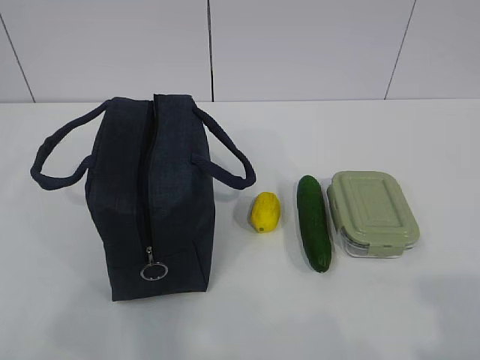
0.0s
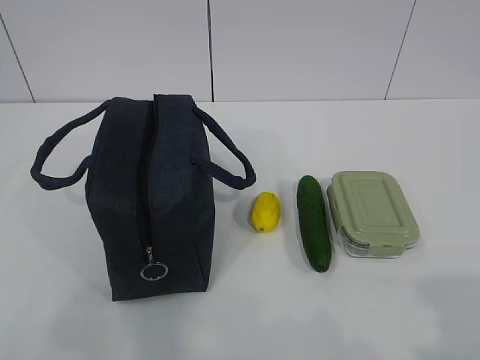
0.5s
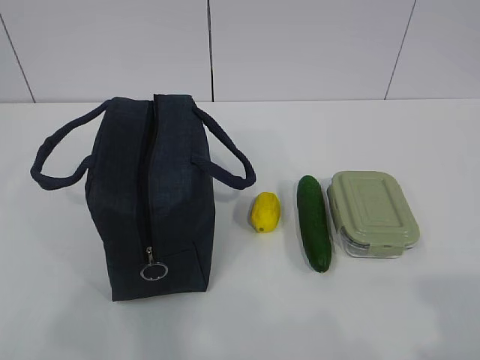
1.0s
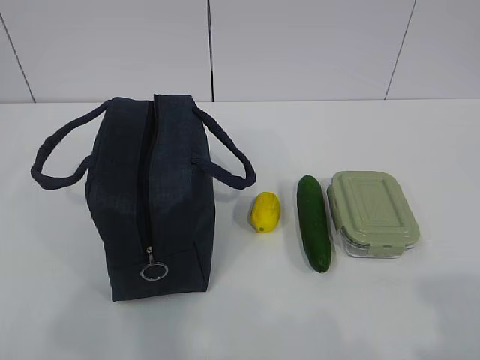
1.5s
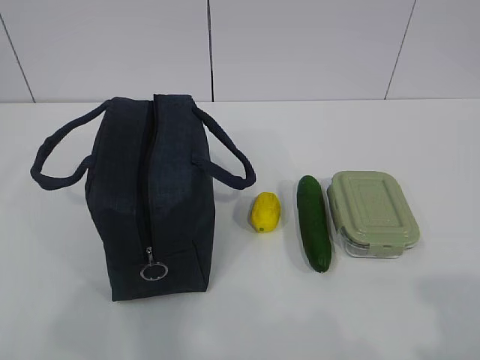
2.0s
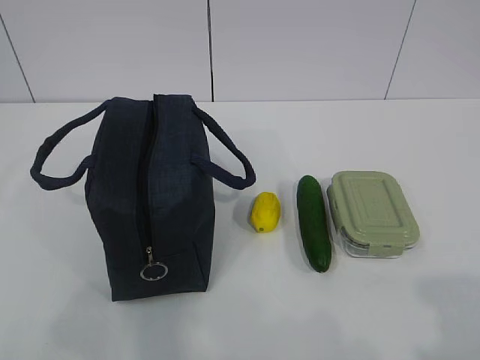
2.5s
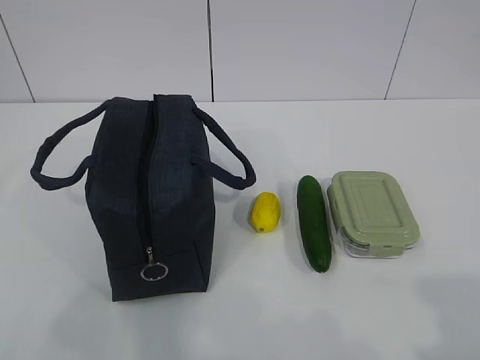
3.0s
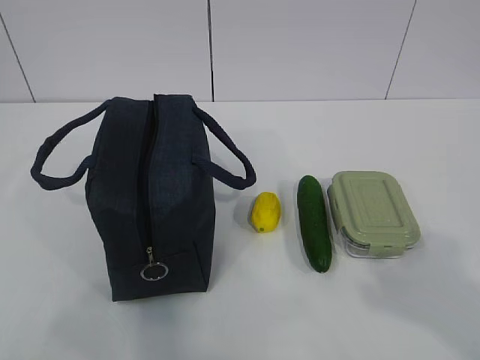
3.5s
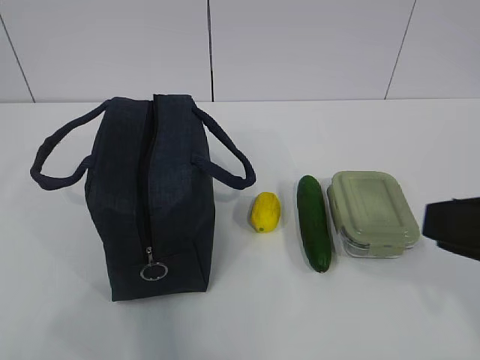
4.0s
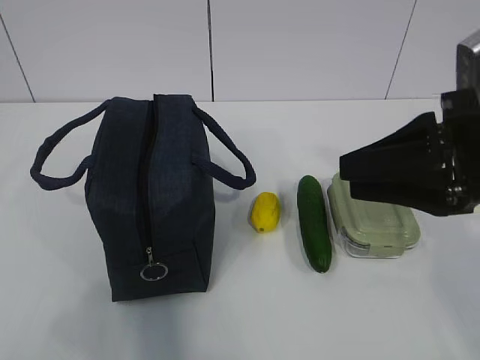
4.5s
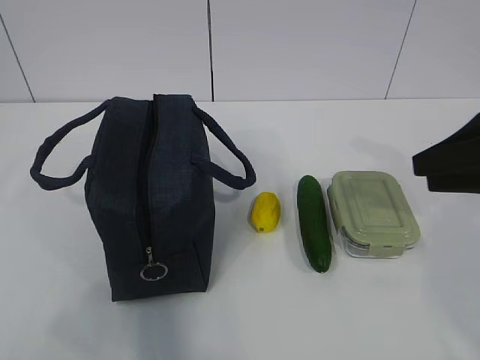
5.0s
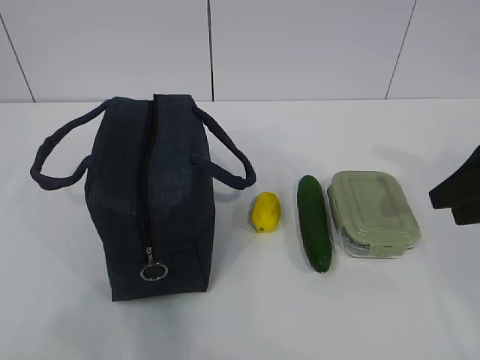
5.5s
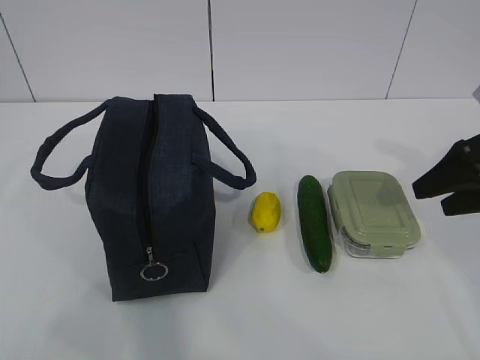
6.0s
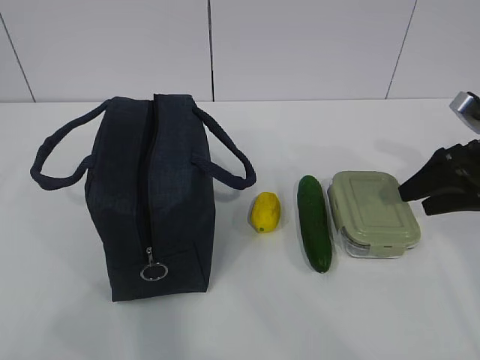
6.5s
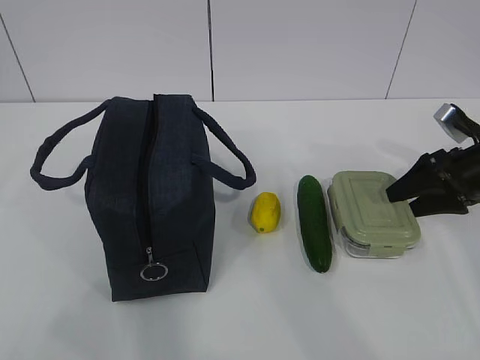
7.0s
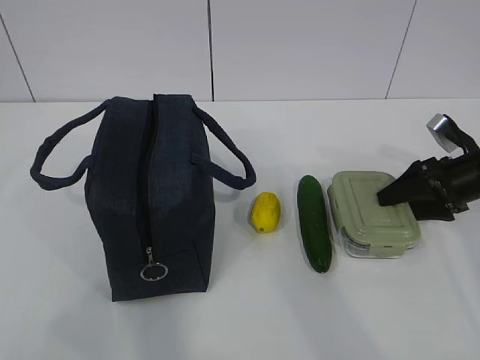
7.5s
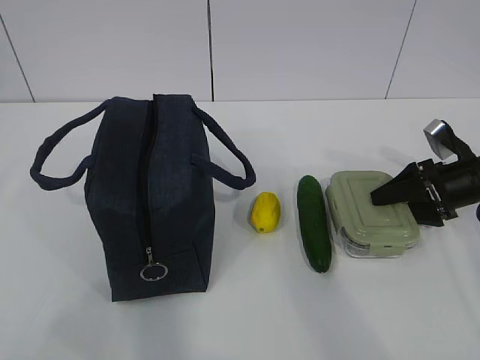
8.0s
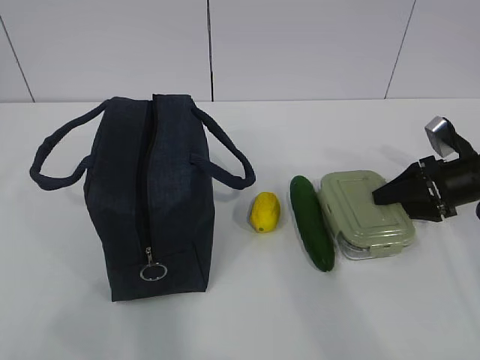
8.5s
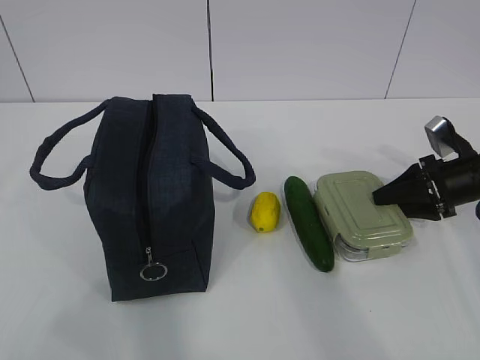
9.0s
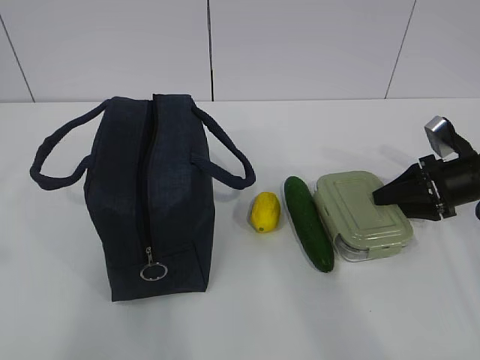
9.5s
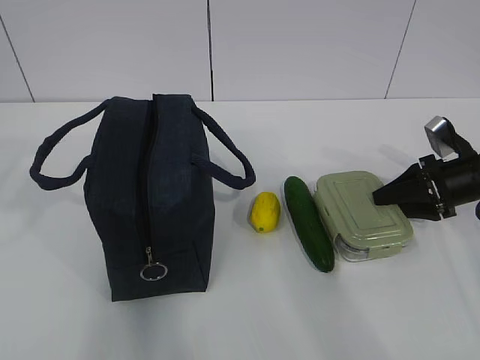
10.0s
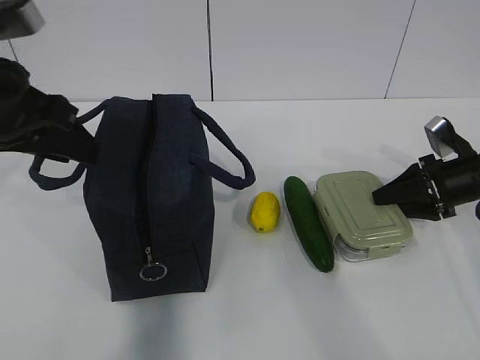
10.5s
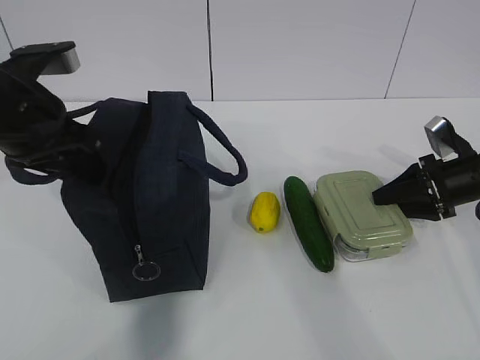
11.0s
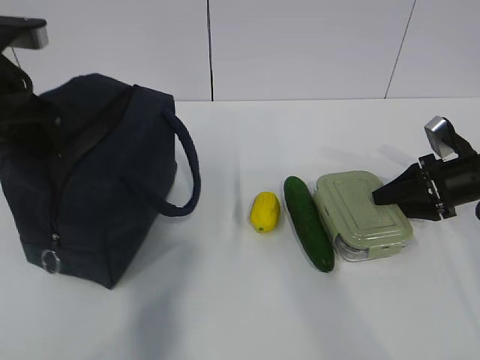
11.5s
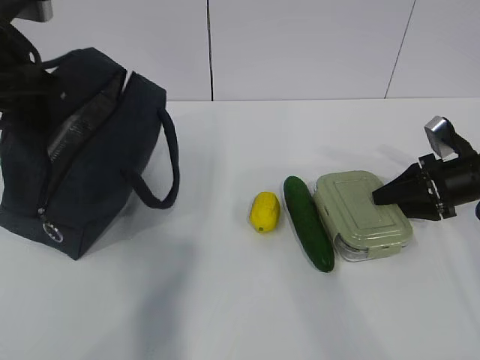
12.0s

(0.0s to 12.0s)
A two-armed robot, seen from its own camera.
Step, 0.0s - 10.0s: Grab the lunch box with your right hand.
2.0s - 4.0s: The right gripper is displaced forward and to the left by some 15 cm.
4.0s - 6.0s: The right gripper is displaced forward, to the right and downward by about 25 cm, and opens its fingers.
6.0s - 8.0s: The right gripper travels downward and forward by some 15 cm.
8.0s - 10.0s: The right gripper closes its fingers; the left gripper goes some 20 cm forward.
10.0s - 12.0s: The left gripper is displaced forward by about 15 cm, and closes up.

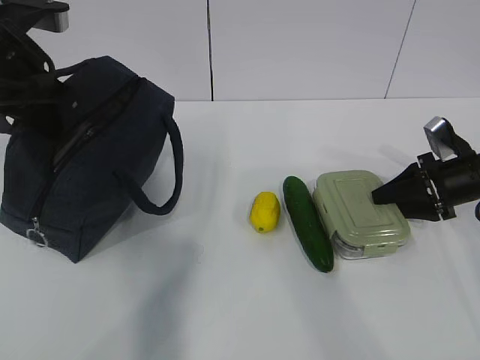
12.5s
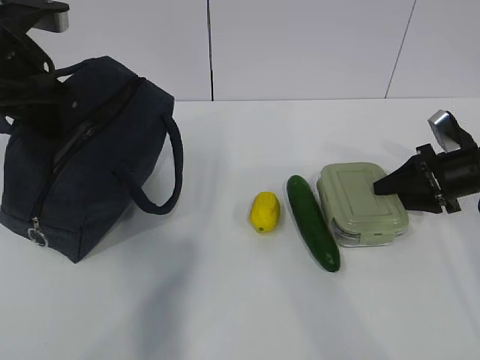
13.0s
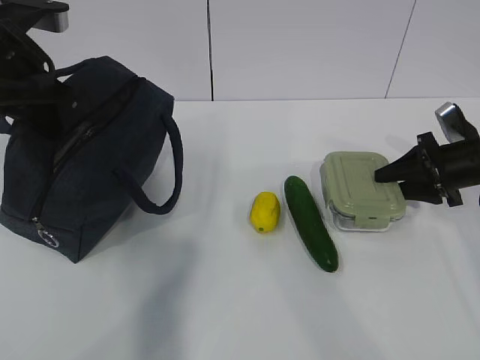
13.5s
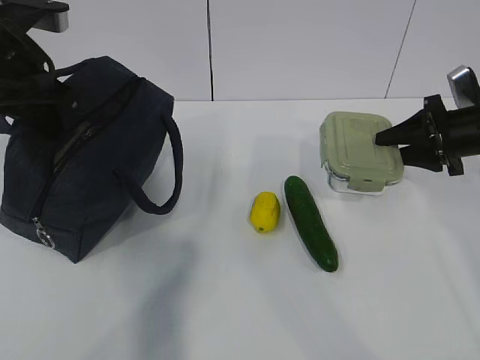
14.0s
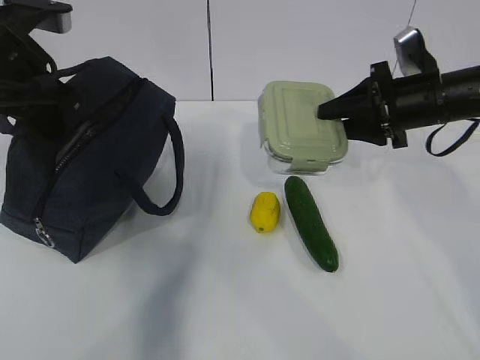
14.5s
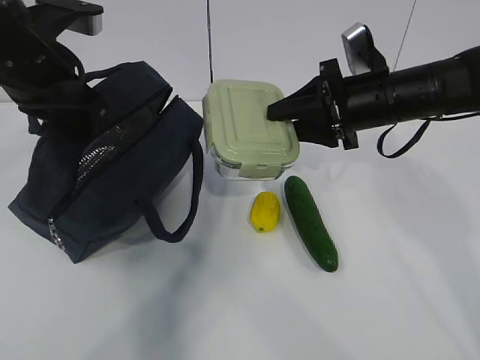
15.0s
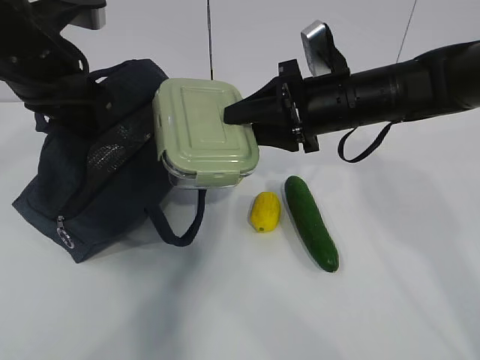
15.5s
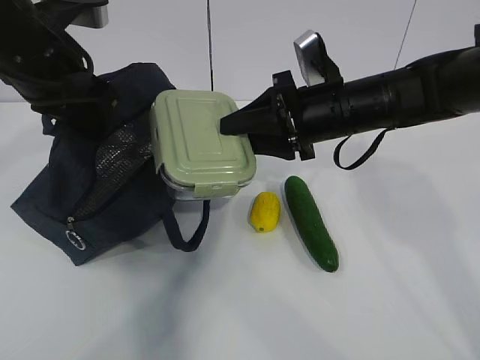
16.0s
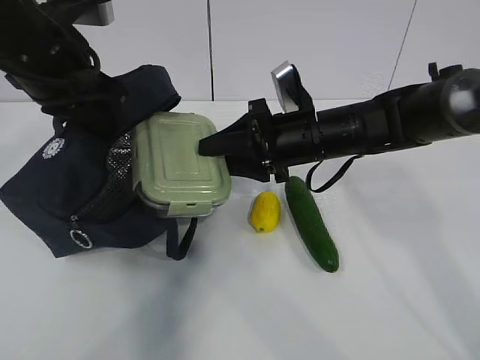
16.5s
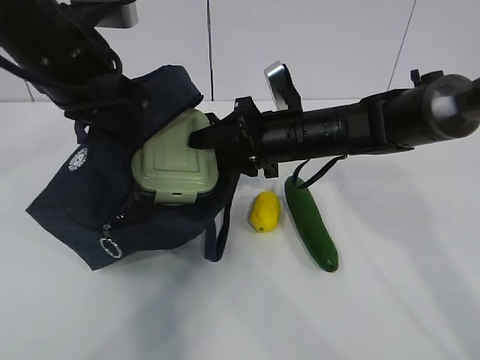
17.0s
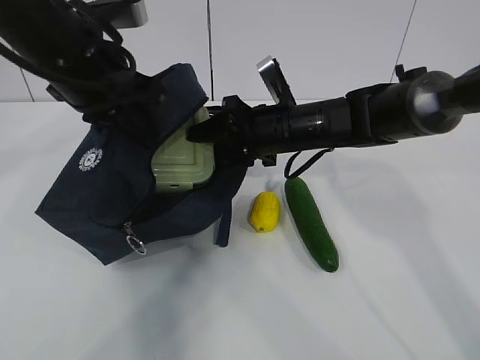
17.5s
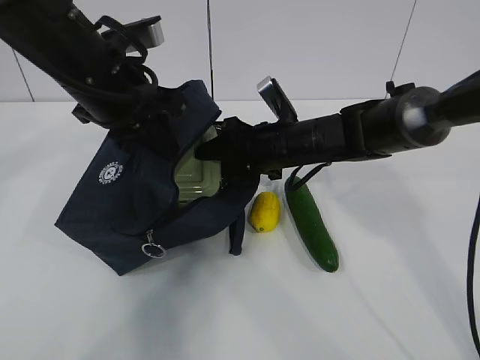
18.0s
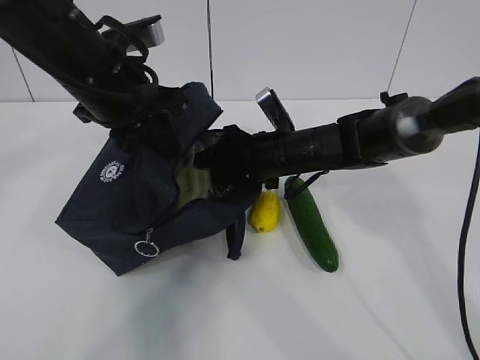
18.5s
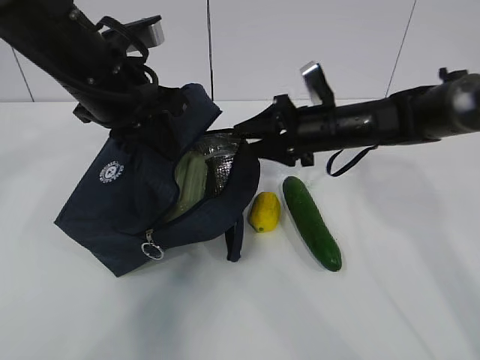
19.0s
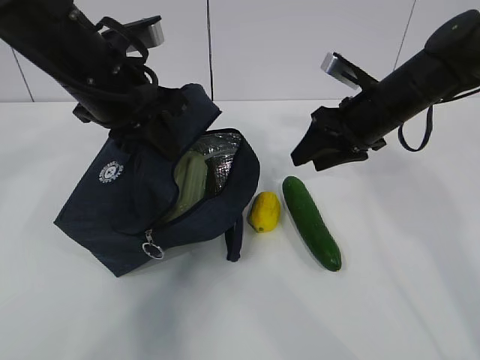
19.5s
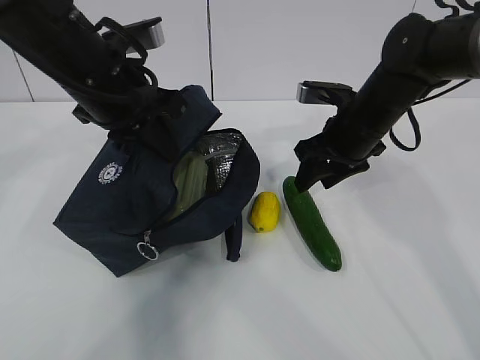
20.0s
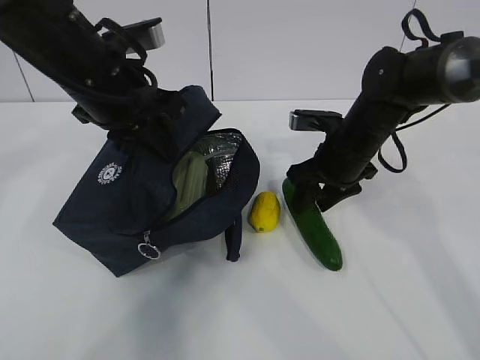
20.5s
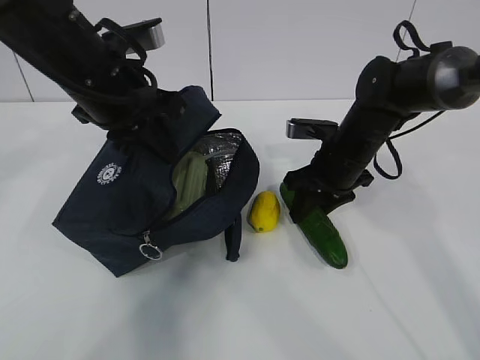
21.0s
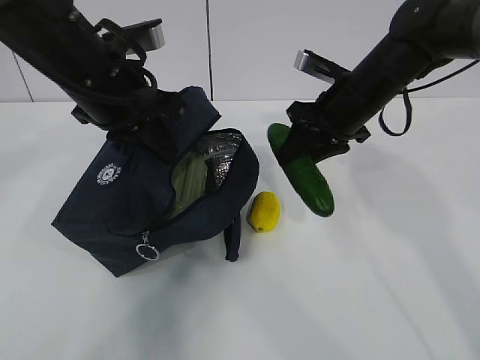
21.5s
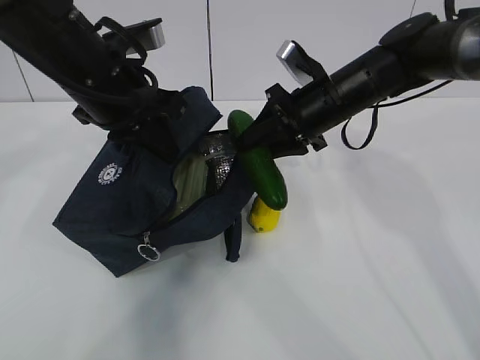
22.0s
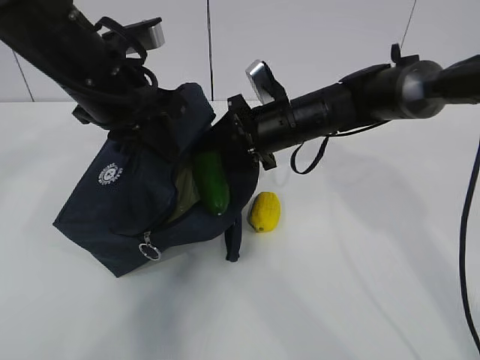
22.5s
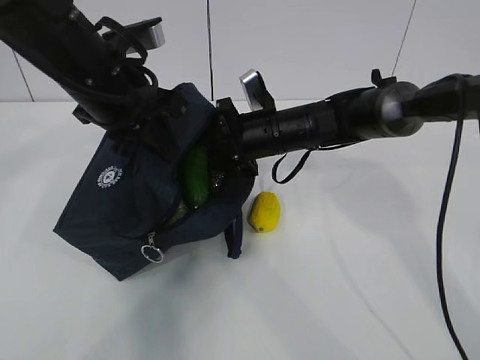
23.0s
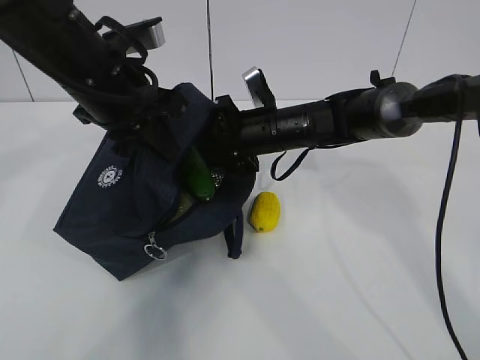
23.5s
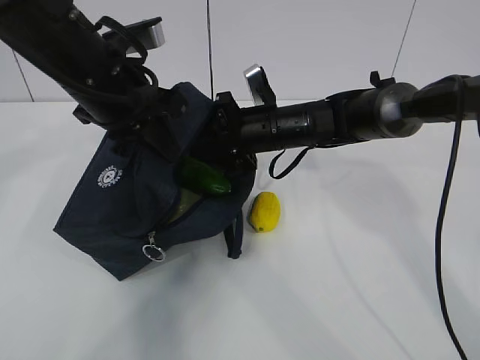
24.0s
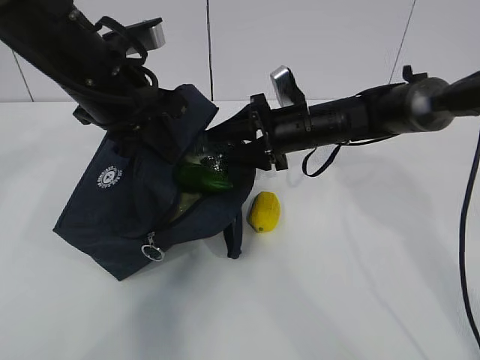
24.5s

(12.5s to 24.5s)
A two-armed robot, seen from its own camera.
Step, 13.0s - 15.5s: Place it into the bag with your right hand.
Step, 16.0s - 17.0s: Grab the cucumber with your right hand.
Step, 17.5s - 20.0s: Place it into the bag with your right hand.
Step, 20.5s - 22.0s: Grab the lemon with your right hand.
12.5s - 14.5s: The right gripper goes approximately 15 cm upward and to the left.
14.5s - 16.5s: The right gripper travels to the left by about 15 cm.
16.5s - 18.5s: The right gripper travels downward by roughly 5 cm, while the left gripper ends up some 5 cm from where it was.
18.5s - 20.5s: The right gripper goes approximately 10 cm to the right.
20.5s - 22.5s: The right gripper is displaced to the left by approximately 5 cm, and moves some 5 cm upward and comes back.
22.5s - 24.5s: The grippers stay close to where they were, moving slightly.

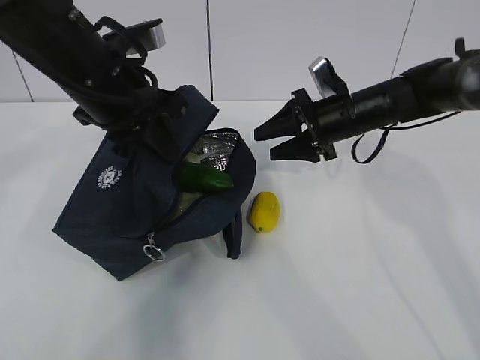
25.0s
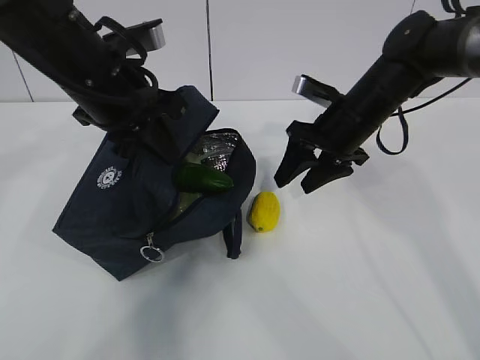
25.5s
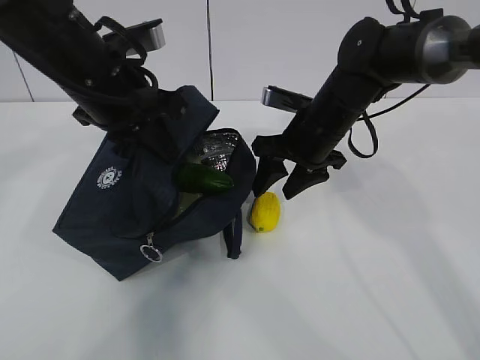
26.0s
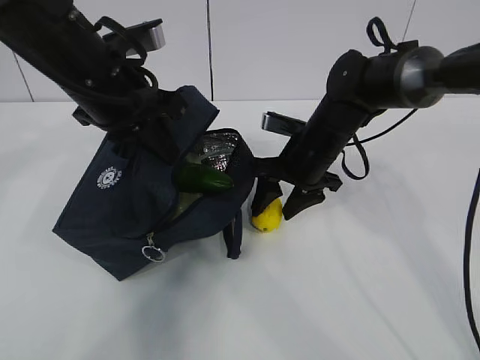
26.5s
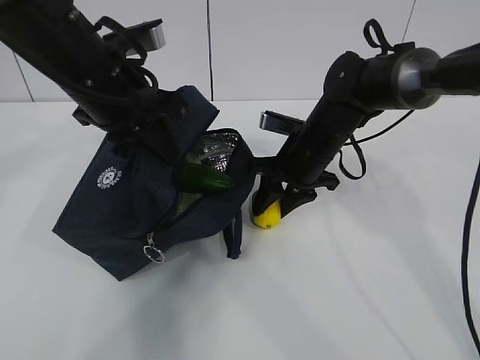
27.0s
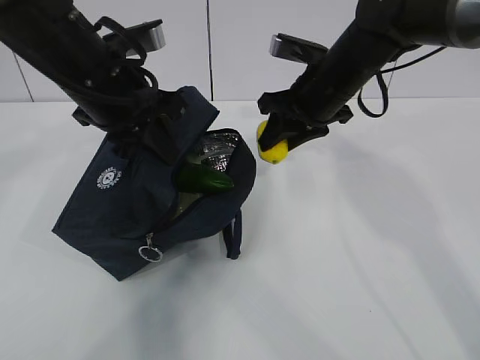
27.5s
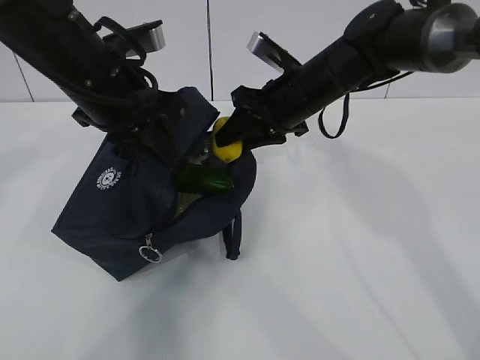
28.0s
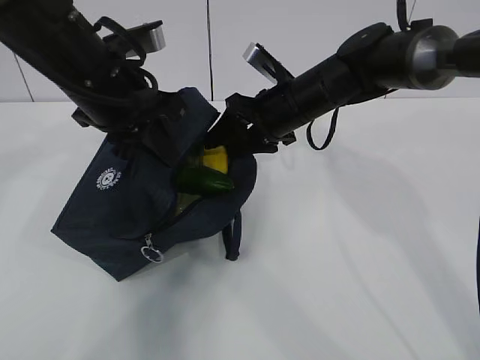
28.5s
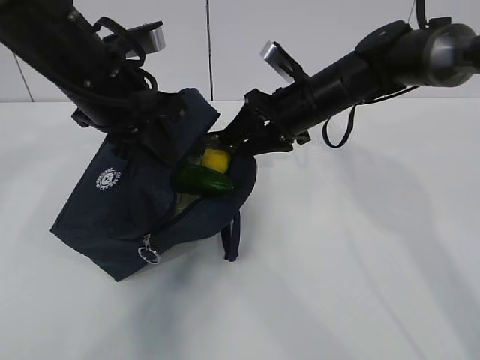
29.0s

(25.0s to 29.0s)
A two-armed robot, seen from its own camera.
Step, 25.5s - 27.0s: Move the lunch bag to the right.
25.0s - 27.0s: The right gripper moves to the left, approximately 5 cm.
27.0s - 29.0s: The right gripper shifts some 5 cm upward.
